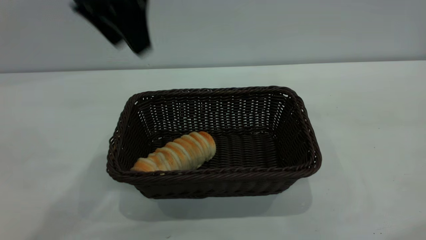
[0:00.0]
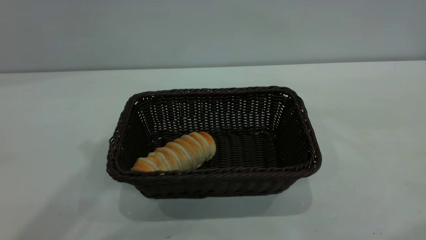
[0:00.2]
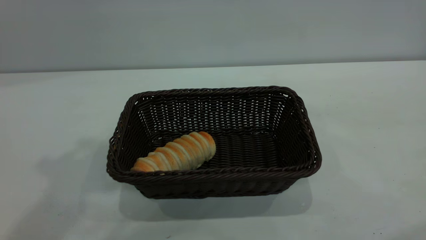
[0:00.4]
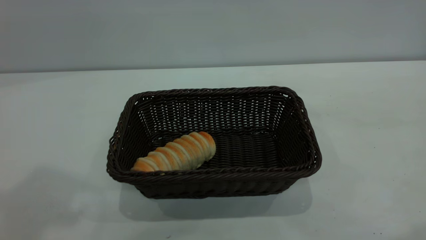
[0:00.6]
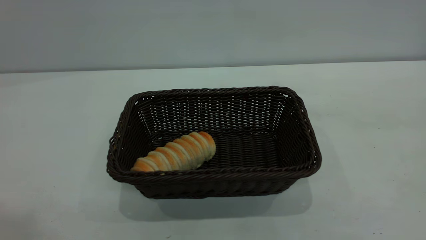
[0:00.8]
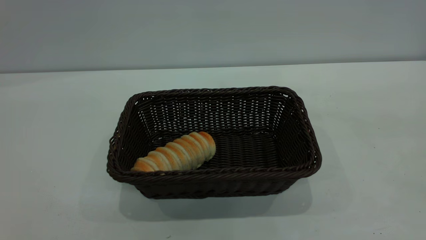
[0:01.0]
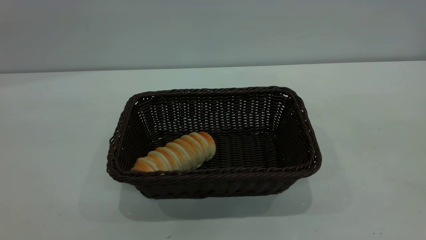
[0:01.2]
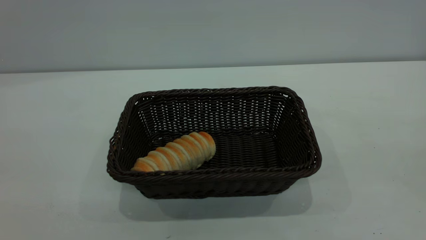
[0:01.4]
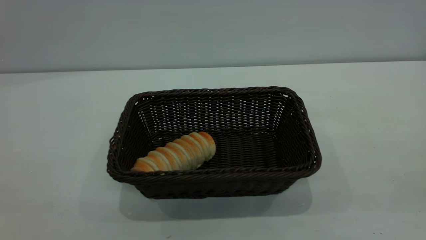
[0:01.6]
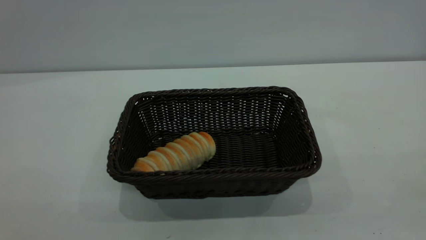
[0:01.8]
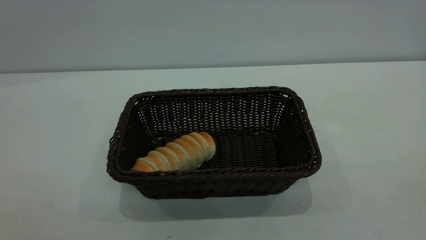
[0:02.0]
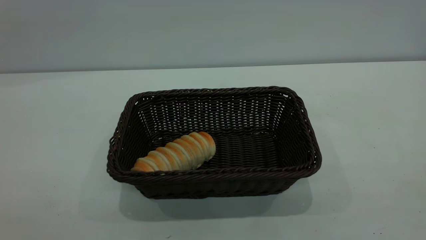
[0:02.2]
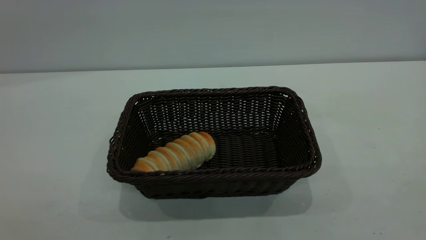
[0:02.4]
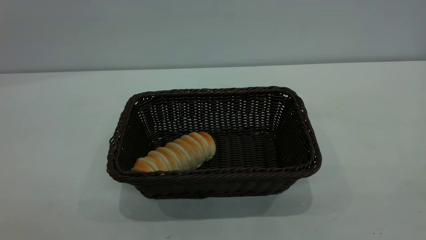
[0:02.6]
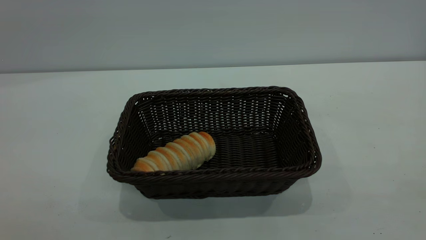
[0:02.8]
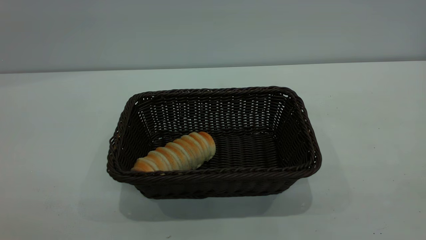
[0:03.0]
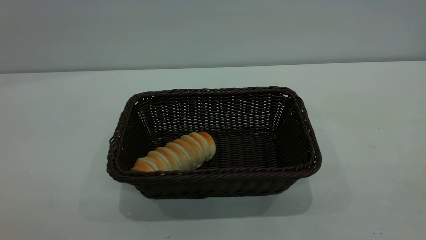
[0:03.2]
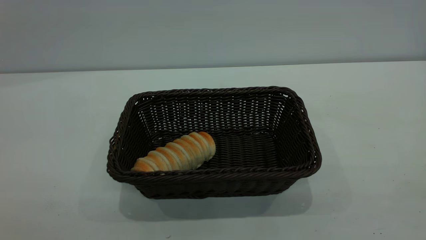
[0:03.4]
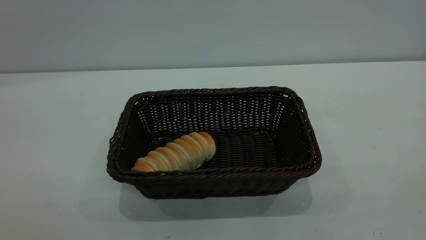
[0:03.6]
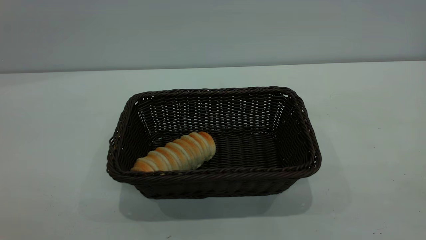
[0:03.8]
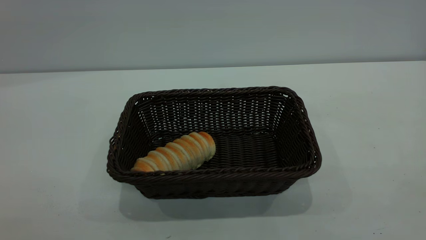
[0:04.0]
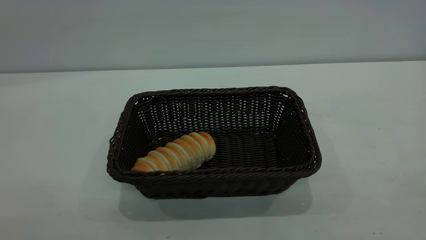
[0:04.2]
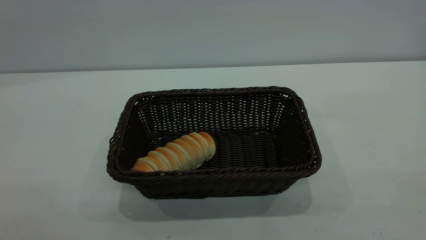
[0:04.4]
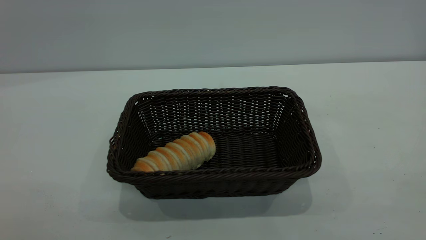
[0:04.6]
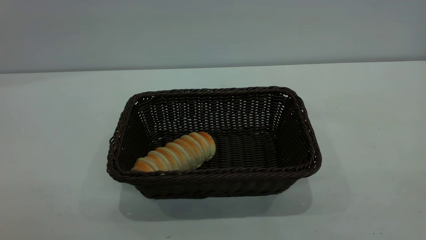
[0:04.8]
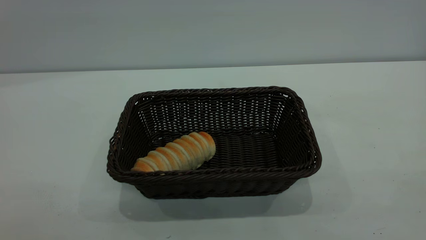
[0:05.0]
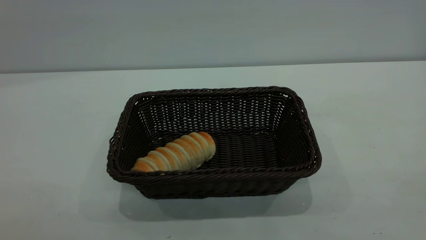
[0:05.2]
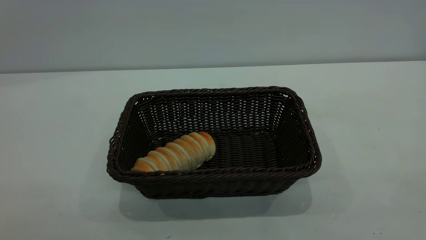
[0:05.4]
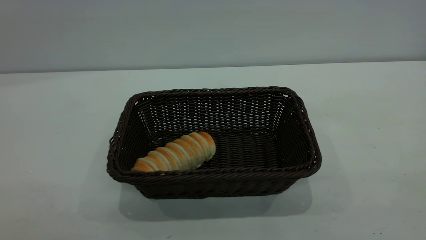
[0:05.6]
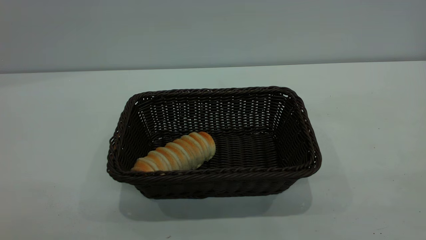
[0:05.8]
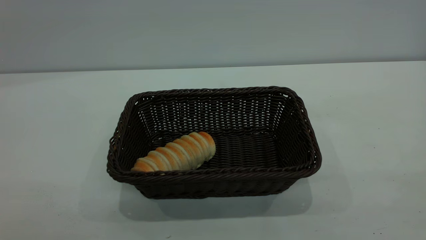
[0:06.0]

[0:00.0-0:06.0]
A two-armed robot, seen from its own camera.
Task of the whole recording: One hand grasps the black basket and places it in the middle of the table, while the other hand picks up the long bread and puts it into the black basket.
0:00.0 to 0:01.6: The left gripper is displaced backward and to the left by roughly 40 cm. Meanwhile the right gripper goes approximately 15 cm backward.

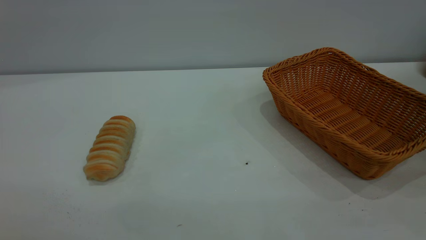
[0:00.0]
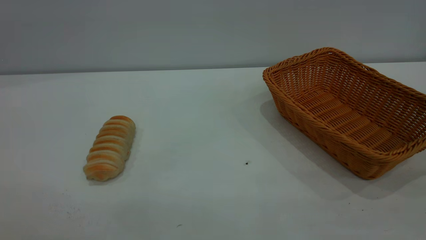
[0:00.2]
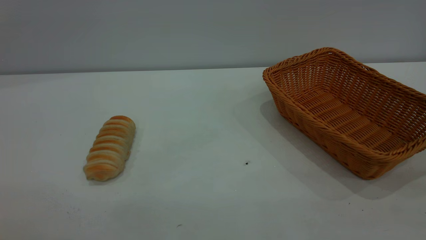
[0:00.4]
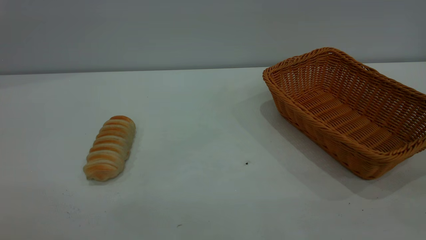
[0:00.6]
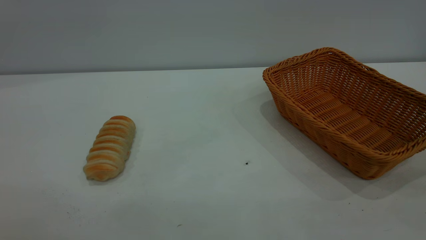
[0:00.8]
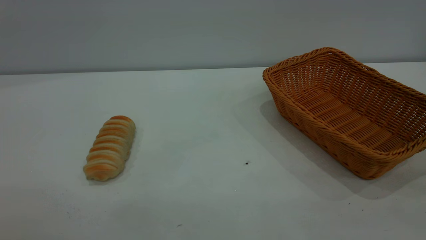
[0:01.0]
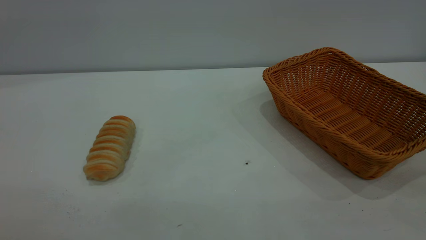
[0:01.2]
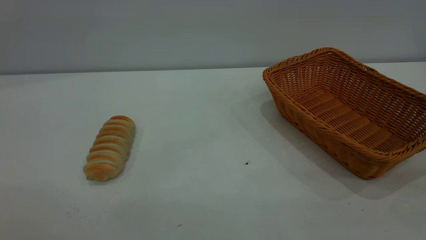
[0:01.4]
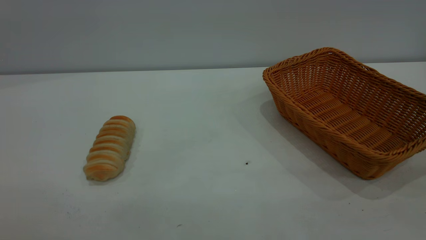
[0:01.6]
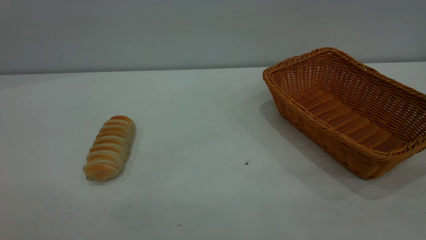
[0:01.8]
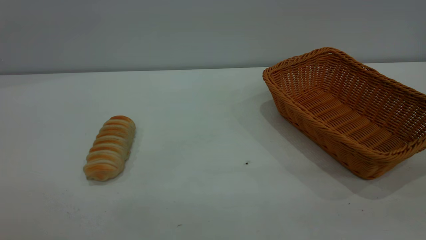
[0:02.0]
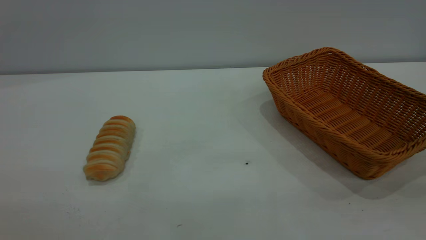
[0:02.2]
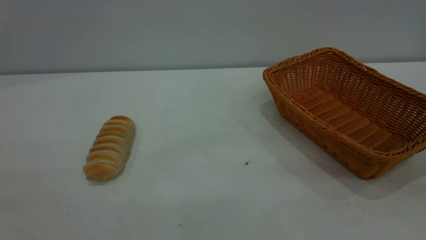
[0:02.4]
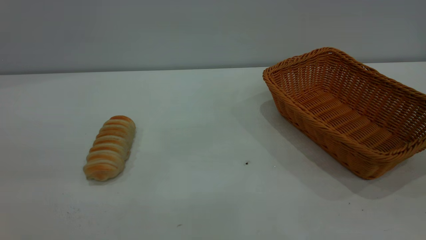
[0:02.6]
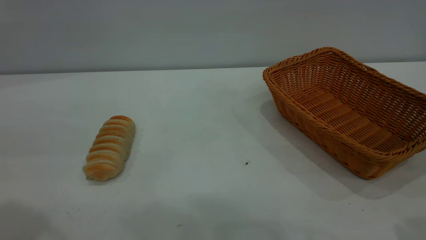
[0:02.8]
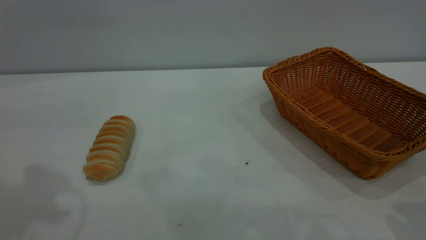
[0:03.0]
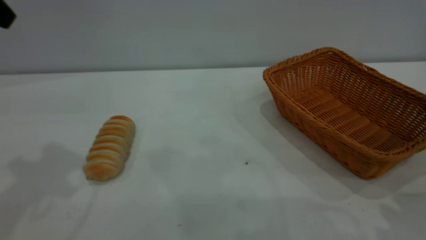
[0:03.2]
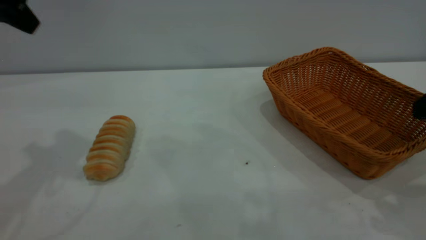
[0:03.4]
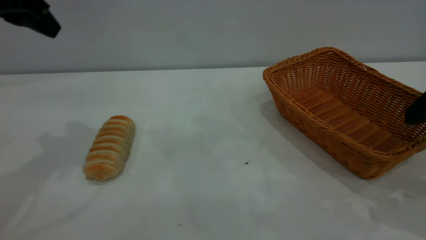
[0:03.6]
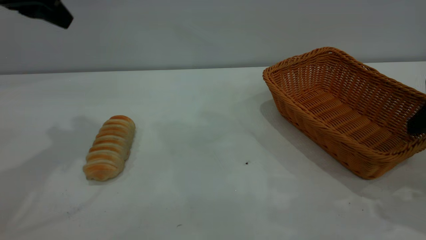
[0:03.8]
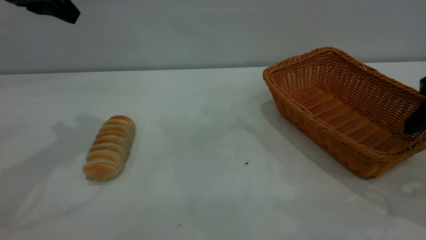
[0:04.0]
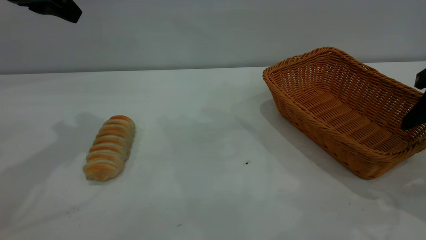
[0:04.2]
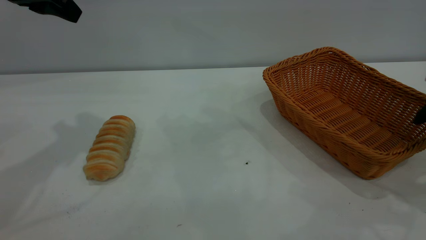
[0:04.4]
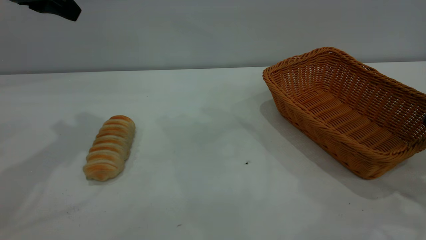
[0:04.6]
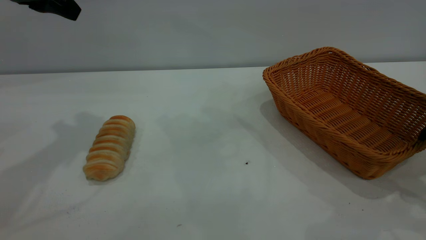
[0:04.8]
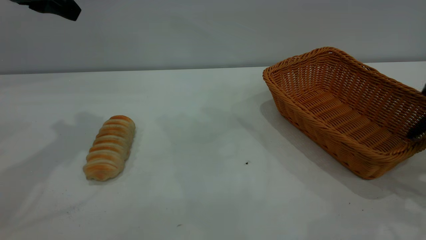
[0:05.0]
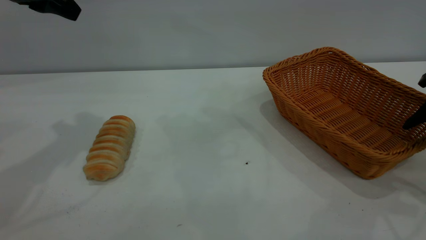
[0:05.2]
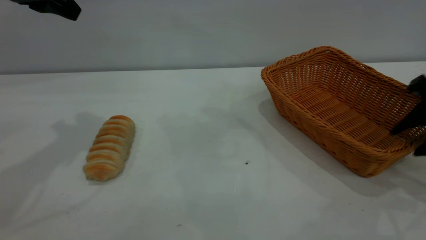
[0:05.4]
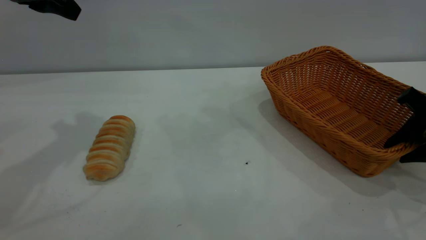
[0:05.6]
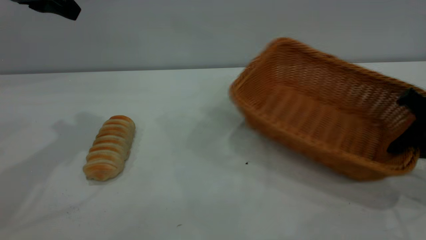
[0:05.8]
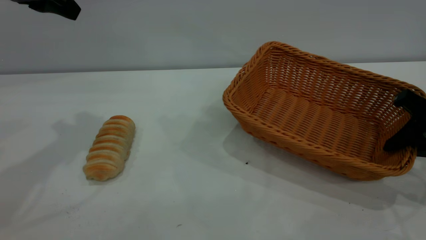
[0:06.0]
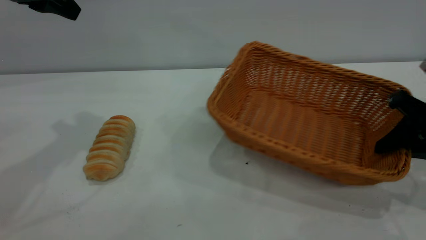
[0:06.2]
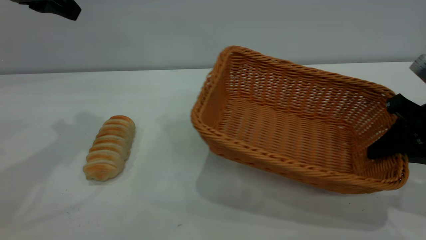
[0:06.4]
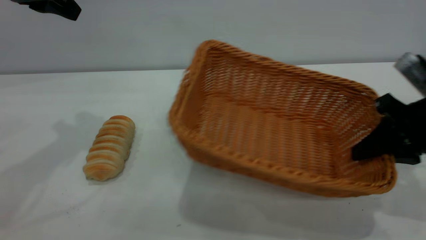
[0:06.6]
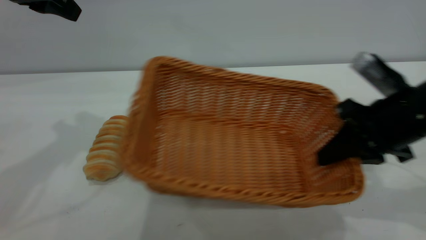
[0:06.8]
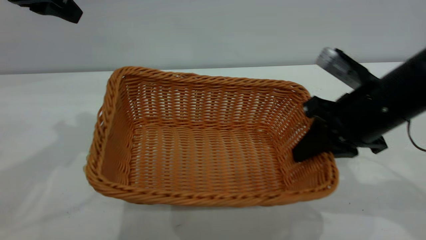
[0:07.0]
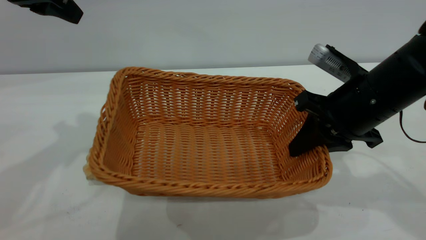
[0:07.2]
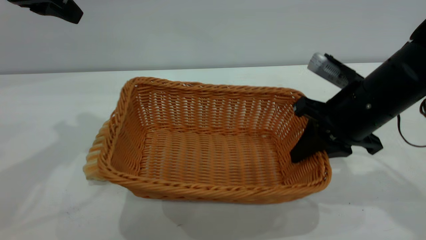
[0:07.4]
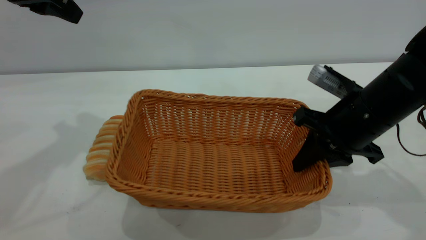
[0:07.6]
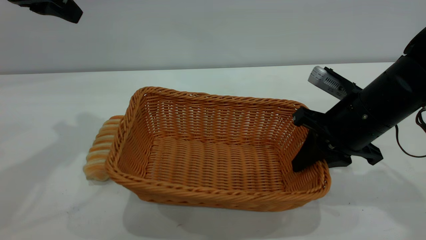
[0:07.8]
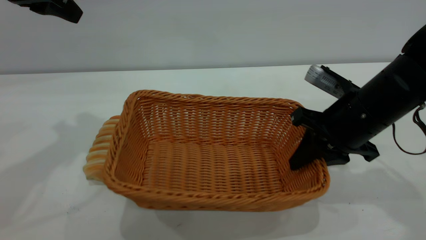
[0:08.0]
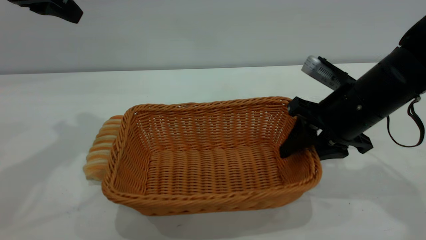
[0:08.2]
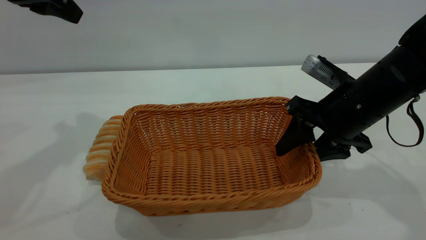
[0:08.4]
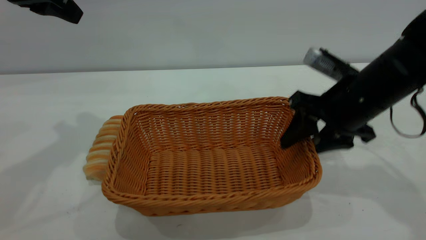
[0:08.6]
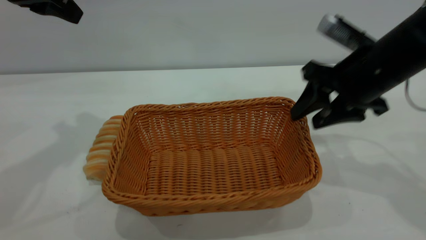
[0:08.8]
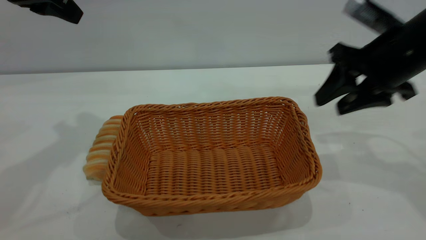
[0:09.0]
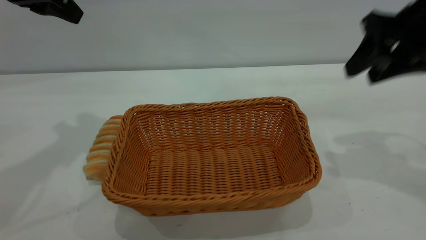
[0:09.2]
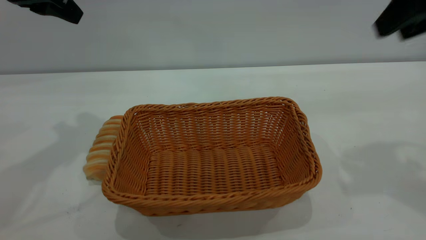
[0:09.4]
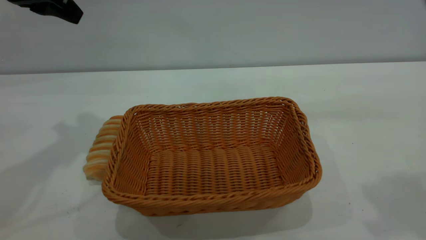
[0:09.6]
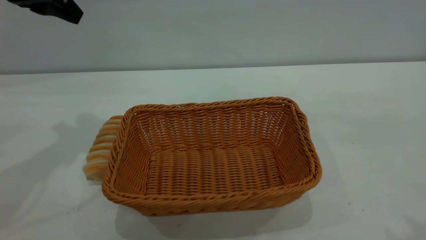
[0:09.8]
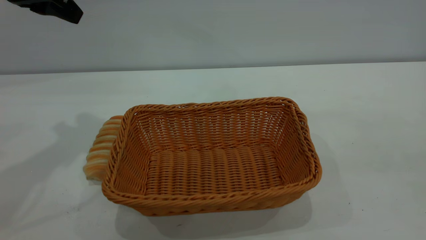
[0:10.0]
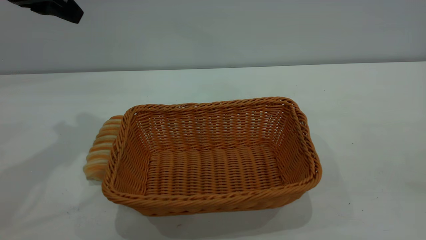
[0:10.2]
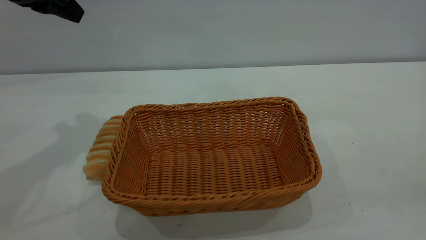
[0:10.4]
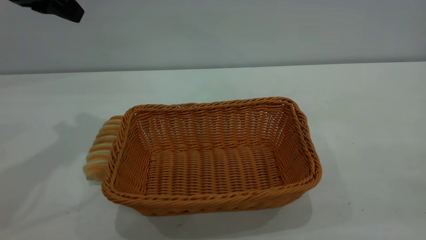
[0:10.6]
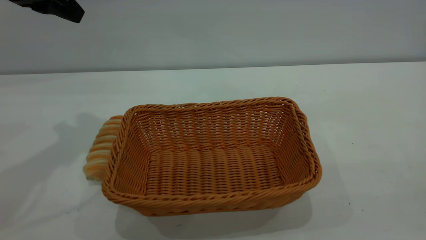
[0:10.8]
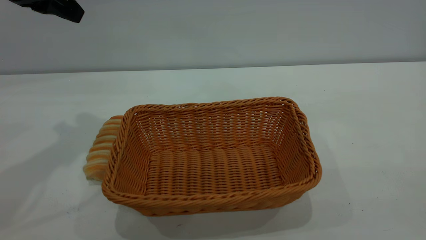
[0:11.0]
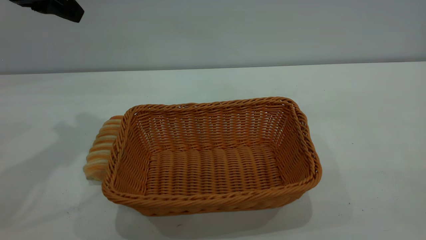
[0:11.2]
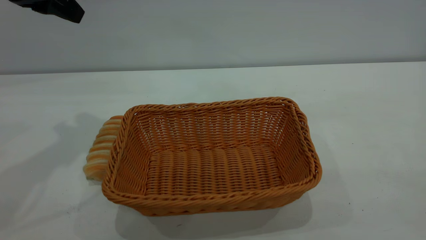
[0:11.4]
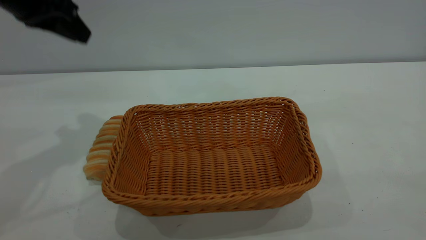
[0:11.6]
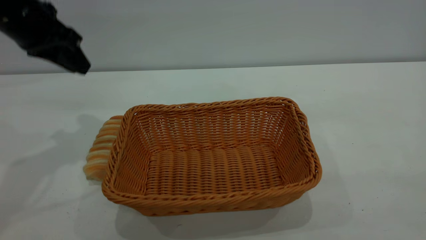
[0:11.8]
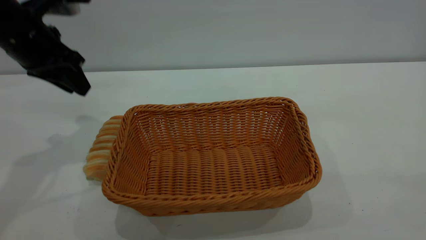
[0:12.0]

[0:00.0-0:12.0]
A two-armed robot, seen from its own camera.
Task of the whole recording: One hand grasps the yellow basket and places it in the middle of the table, while the other hand picks up the long bread and puts it into the yellow basket.
Step, 0:00.0 to 0:09.0: Move the basket to the center of view.
0:00.0 to 0:01.6: The two grippers keep their place.
0:03.0 to 0:04.4: The left gripper goes some 15 cm forward.
0:04.4 to 0:06.0: The right gripper shifts about 5 cm downward, and closes its fingers.
0:06.0 to 0:07.6: The right gripper travels to the left by roughly 15 cm.
0:07.6 to 0:09.0: The right gripper is displaced upward by roughly 10 cm, and opens up.
0:09.0 to 0:10.4: The right gripper shifts approximately 35 cm backward and upward.
0:10.4 to 0:12.0: The left gripper is displaced downward by some 10 cm.
